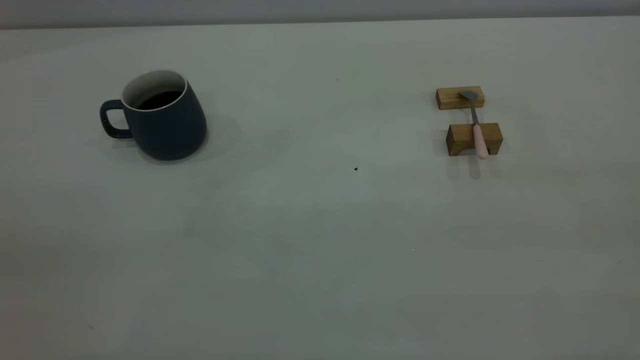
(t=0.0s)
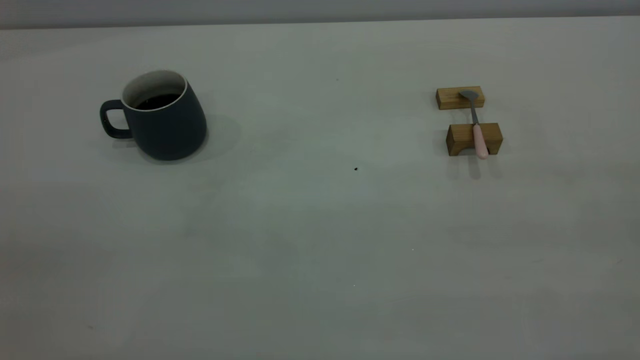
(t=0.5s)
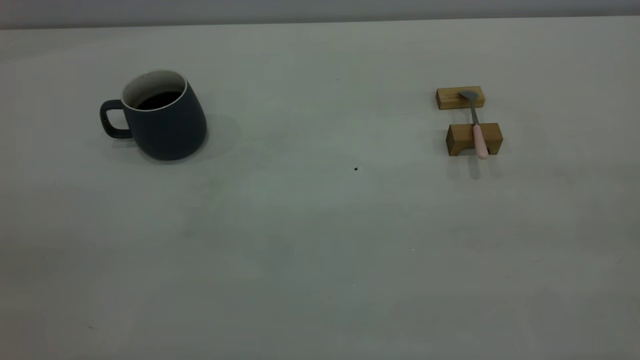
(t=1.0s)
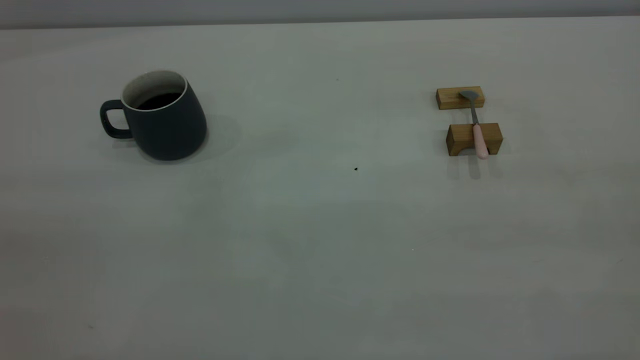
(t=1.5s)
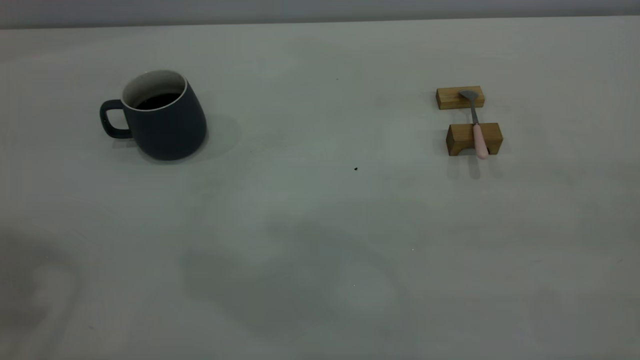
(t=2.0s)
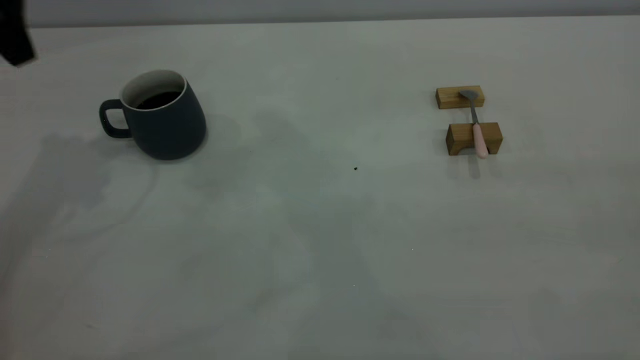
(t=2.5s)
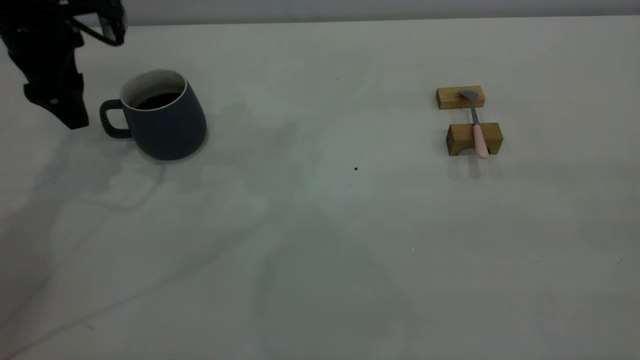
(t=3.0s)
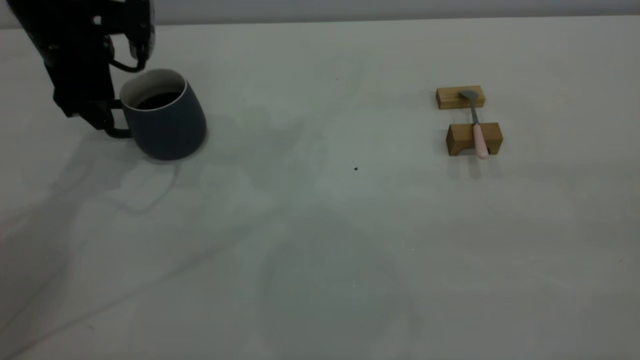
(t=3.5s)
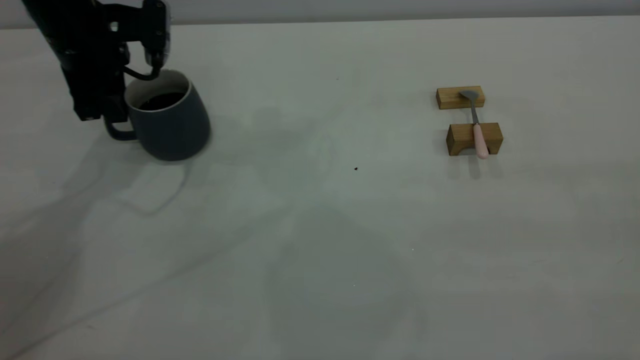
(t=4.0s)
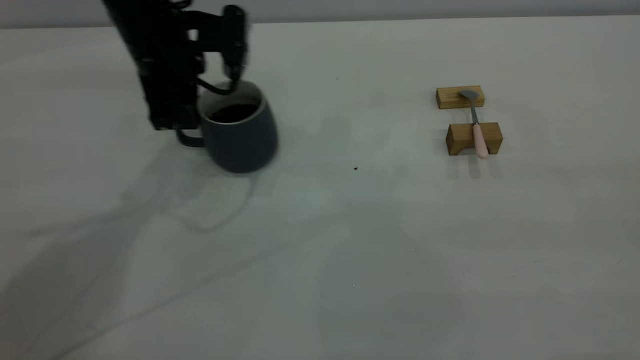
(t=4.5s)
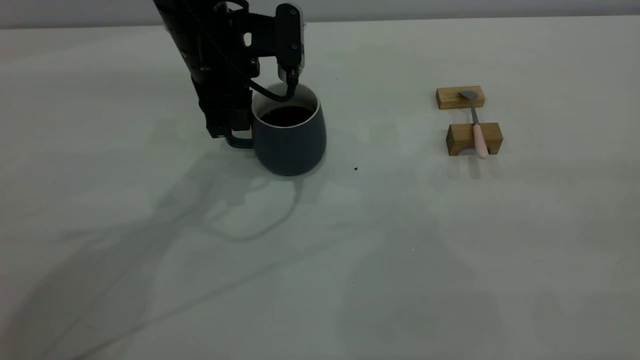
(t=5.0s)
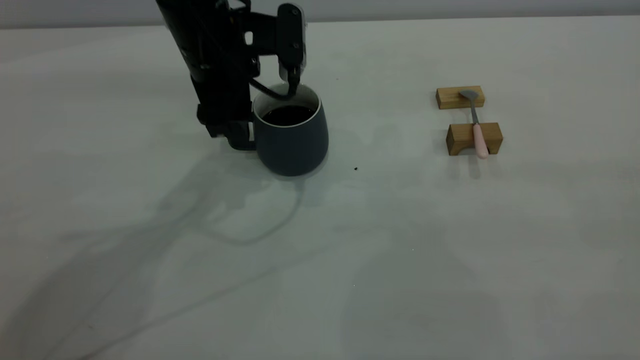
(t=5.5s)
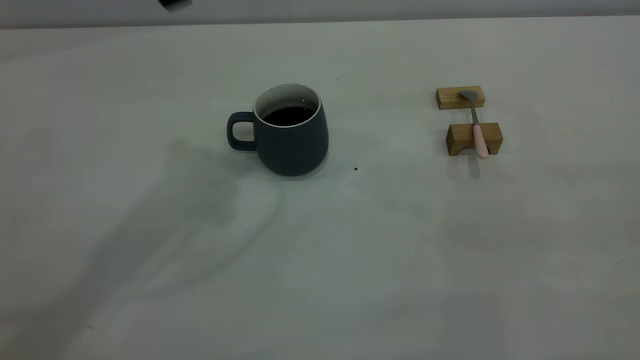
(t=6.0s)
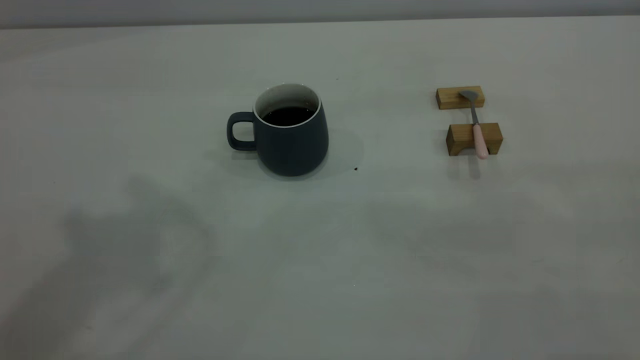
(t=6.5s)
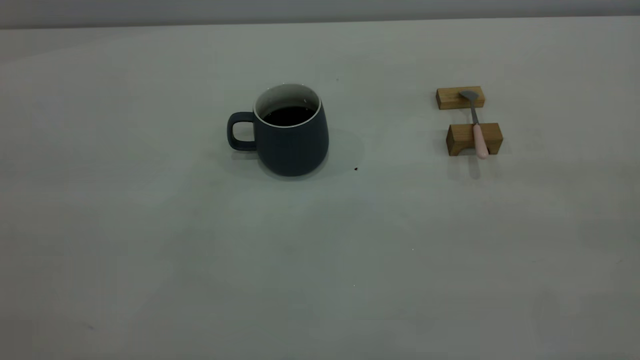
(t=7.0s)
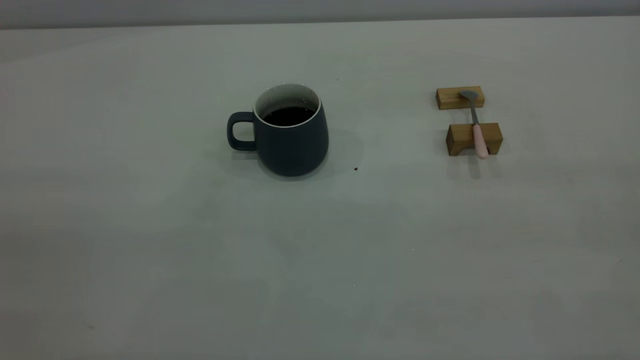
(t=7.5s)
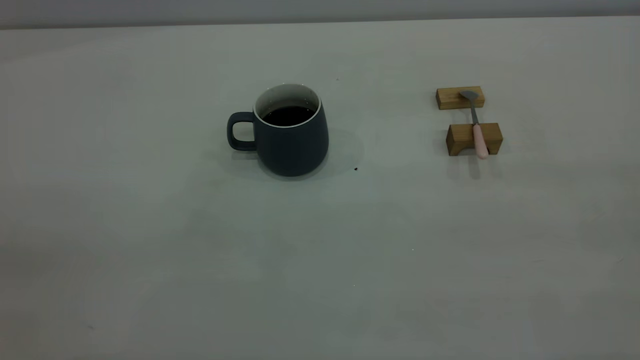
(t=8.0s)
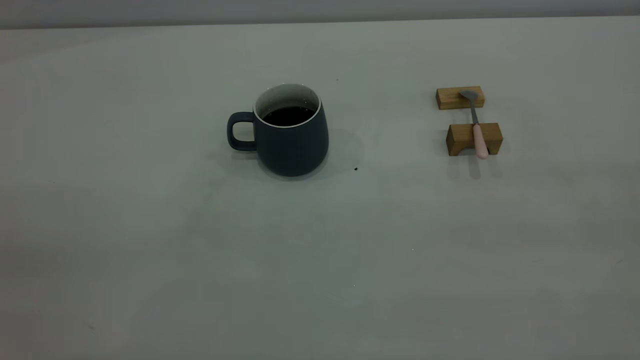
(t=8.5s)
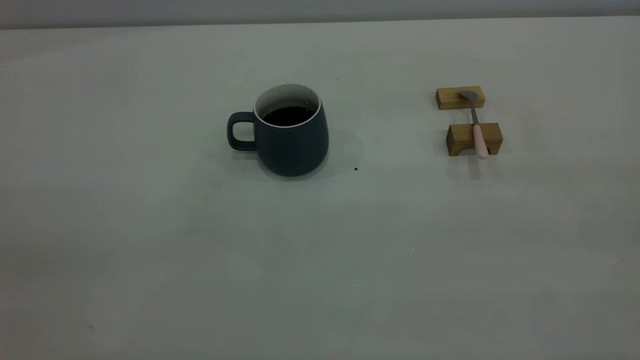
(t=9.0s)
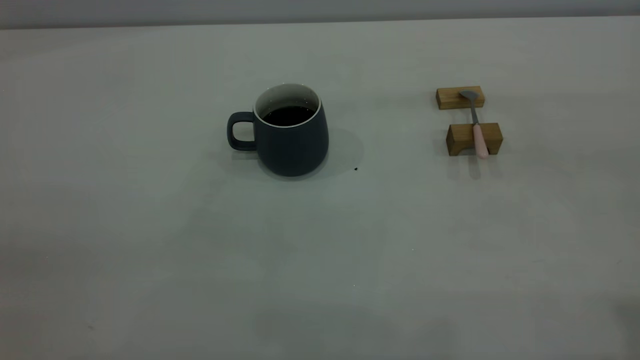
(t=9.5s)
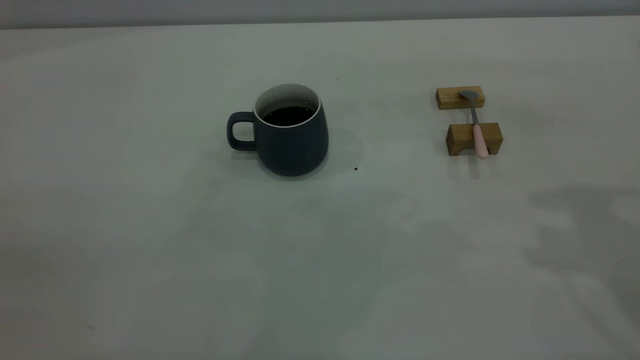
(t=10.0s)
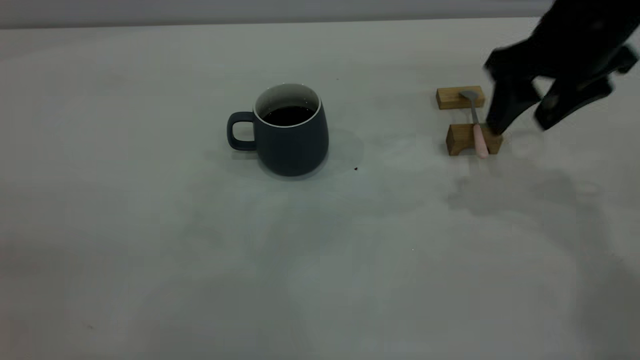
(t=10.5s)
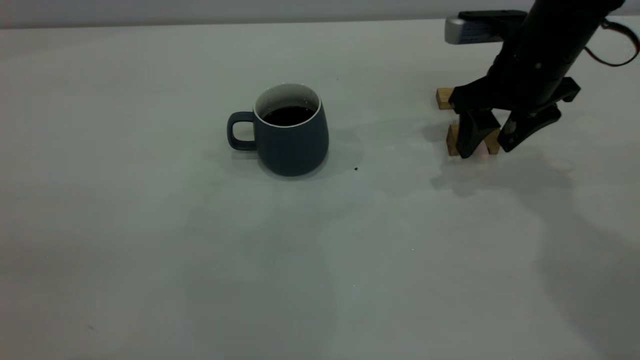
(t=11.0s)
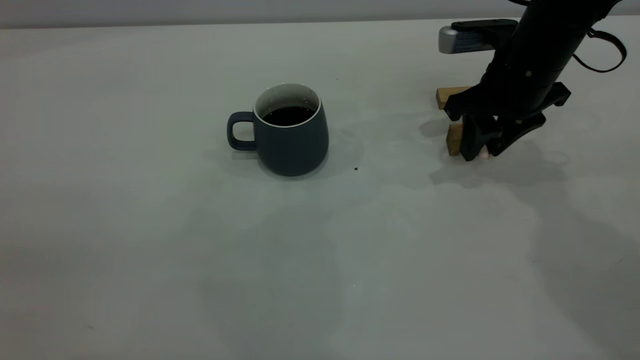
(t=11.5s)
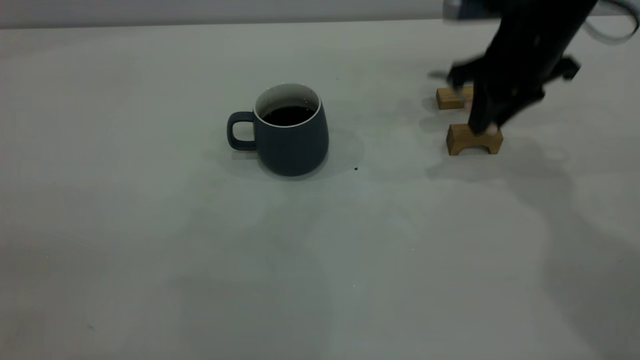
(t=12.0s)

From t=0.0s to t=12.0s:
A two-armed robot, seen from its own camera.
Step, from t=0.0s to t=5.5s: Move the cup with coffee to the center of view.
Step, from t=6.0s to t=12.0s: Pick up the spoon.
From t=2.0s to t=4.0s: The left gripper is displaced downward and forward by roughly 30 cm, and closes.
From t=4.0s to t=6.0s: The left gripper shifts some 25 cm upward, to the right and backward, and opens up.
From t=10.0s to t=12.0s: The right gripper moves forward, downward and to the left, about 20 cm, and closes.

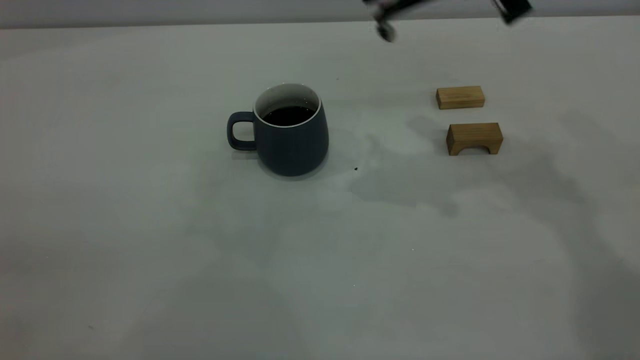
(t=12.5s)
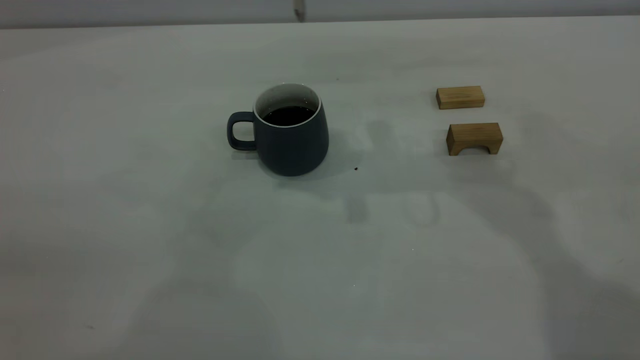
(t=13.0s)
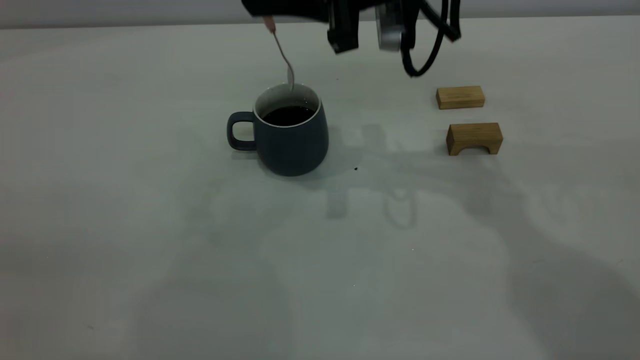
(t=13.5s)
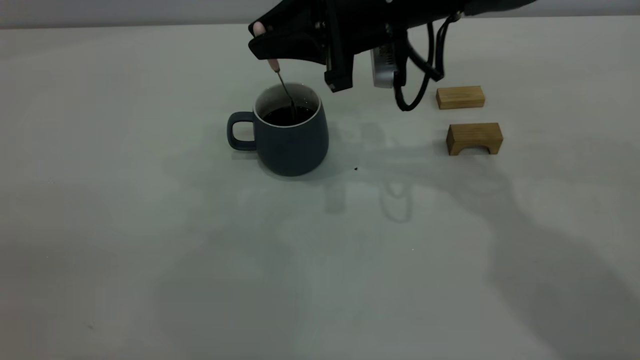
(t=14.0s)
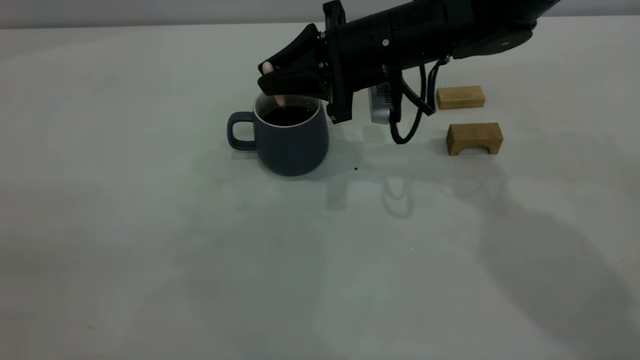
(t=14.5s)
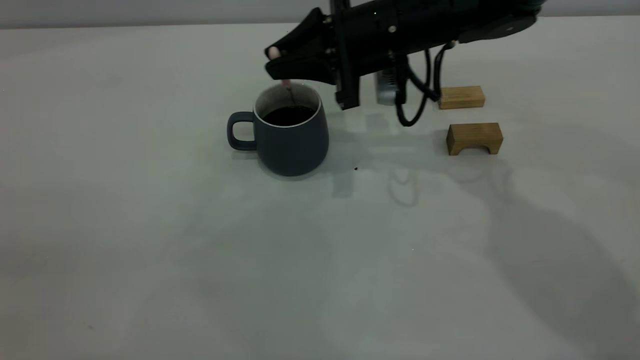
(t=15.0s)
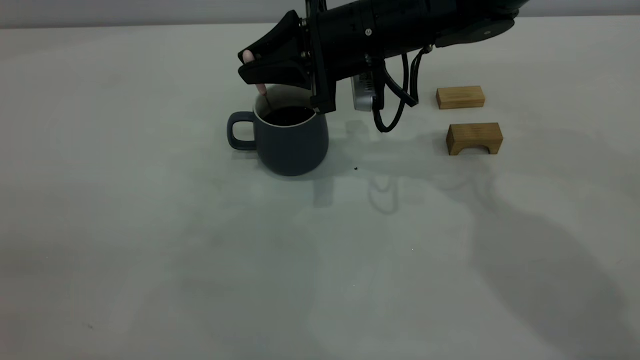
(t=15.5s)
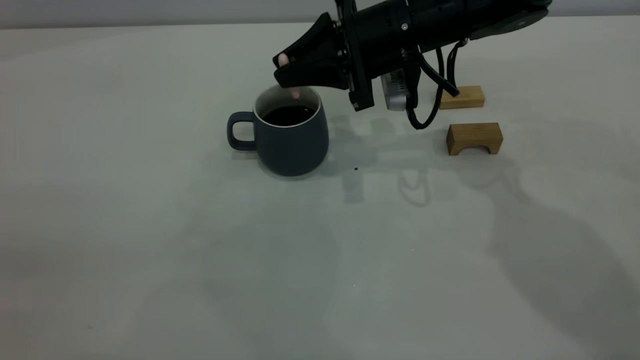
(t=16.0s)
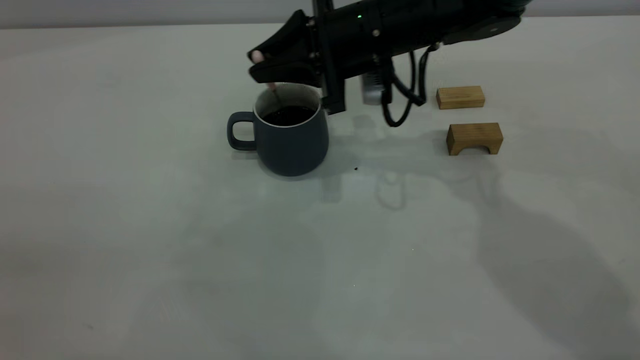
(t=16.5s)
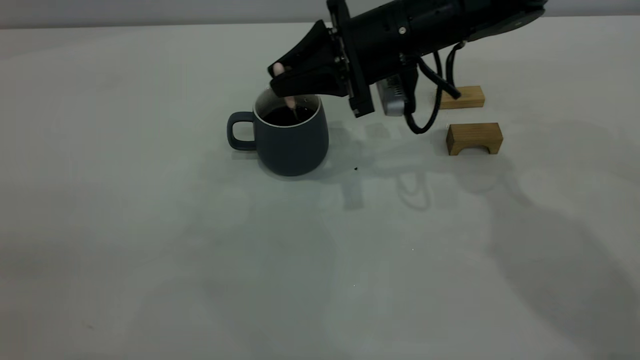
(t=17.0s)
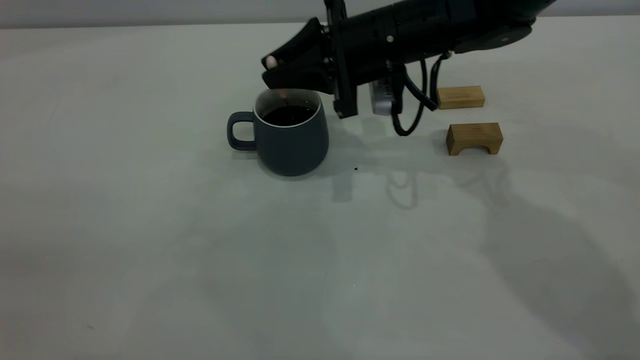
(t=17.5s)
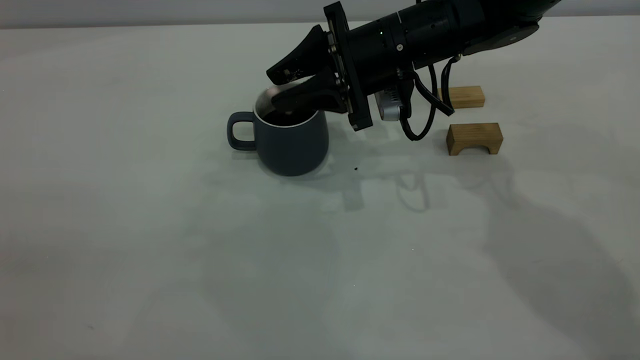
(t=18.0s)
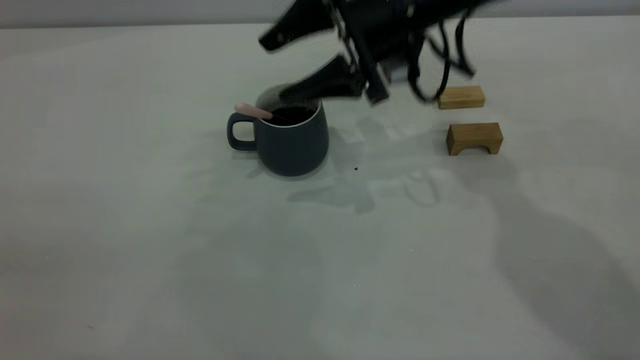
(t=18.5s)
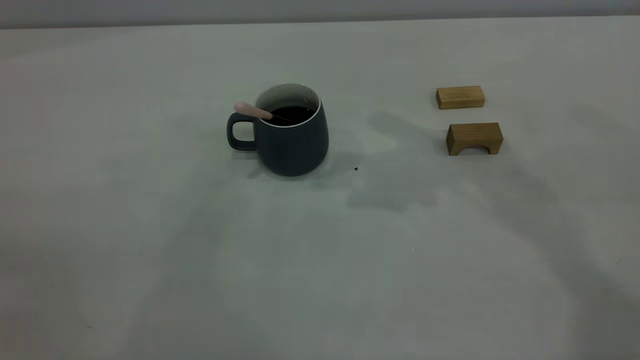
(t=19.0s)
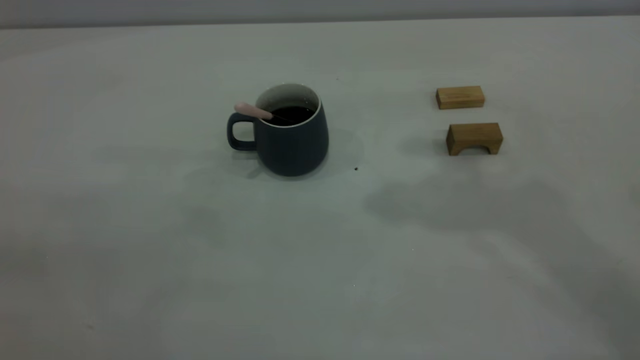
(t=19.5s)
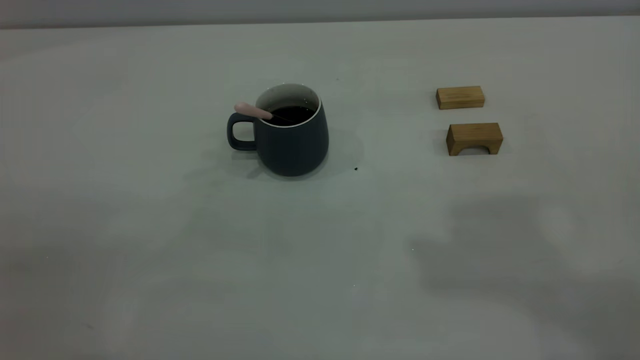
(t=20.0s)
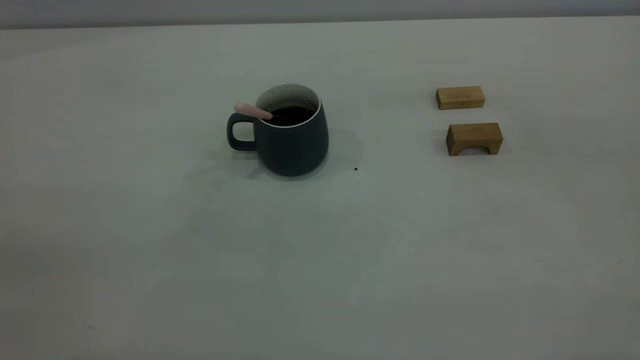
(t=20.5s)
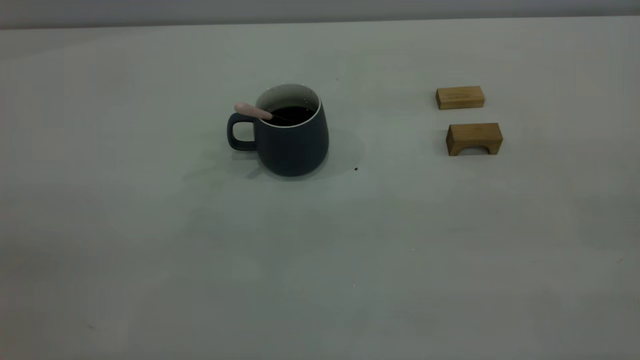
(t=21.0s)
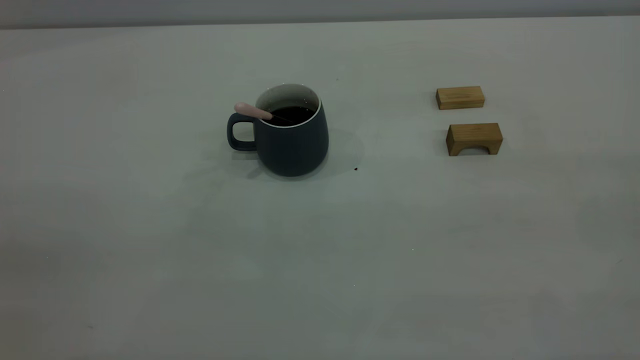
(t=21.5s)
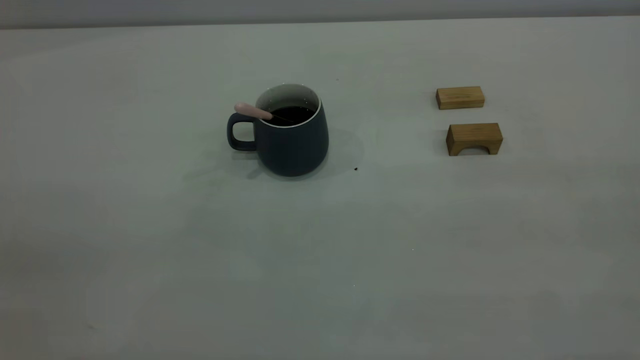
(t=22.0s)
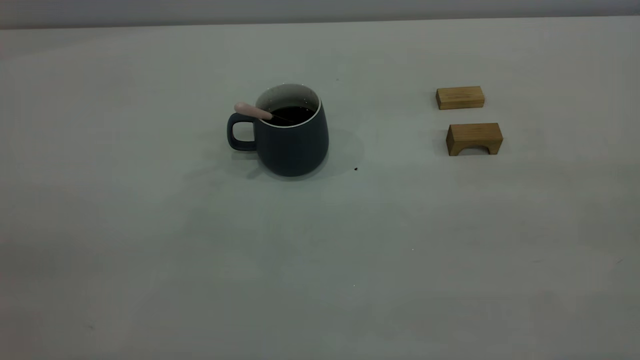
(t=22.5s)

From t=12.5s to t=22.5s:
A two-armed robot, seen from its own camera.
Step, from t=12.5s to t=18.5s: Stir the coffee in the cup.
From t=12.5s to t=14.5s: The right gripper moves downward and to the left, about 15 cm.
From t=14.5s to t=16.5s: The grippers stay close to where they were, moving slightly.
From t=16.5s to t=18.5s: The right gripper shifts by about 5 cm, and opens its fingers.
From t=18.5s to t=20.5s: The right gripper travels backward, upward and to the right by approximately 50 cm.
